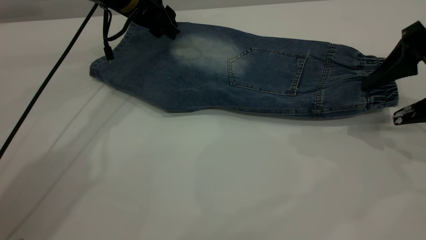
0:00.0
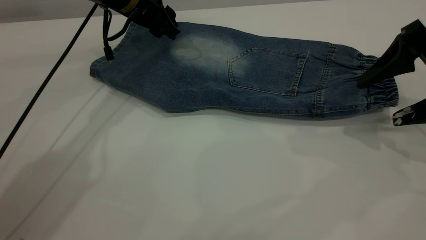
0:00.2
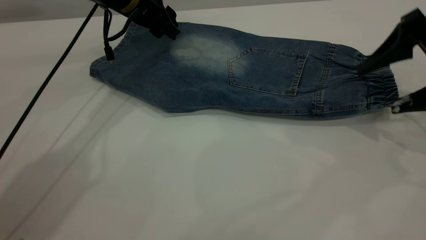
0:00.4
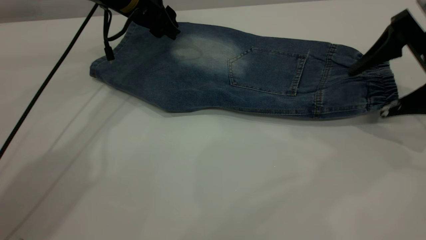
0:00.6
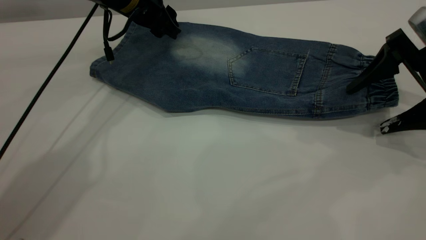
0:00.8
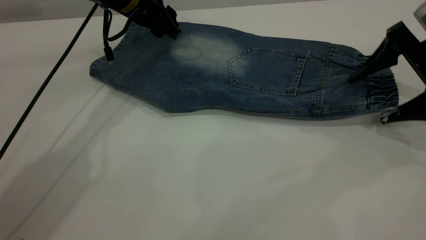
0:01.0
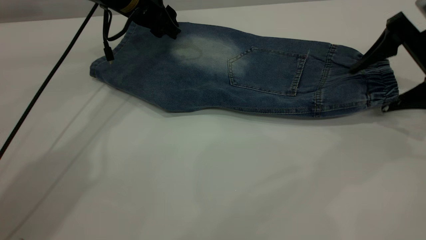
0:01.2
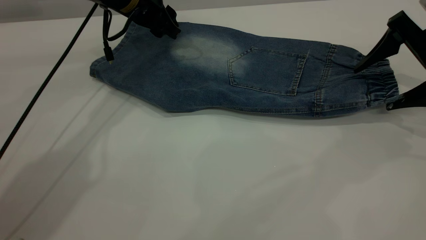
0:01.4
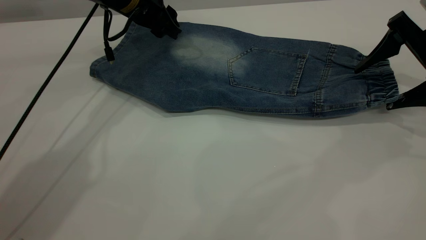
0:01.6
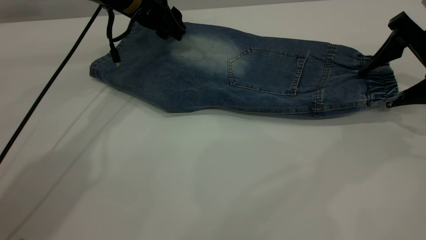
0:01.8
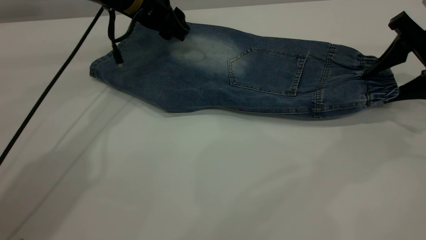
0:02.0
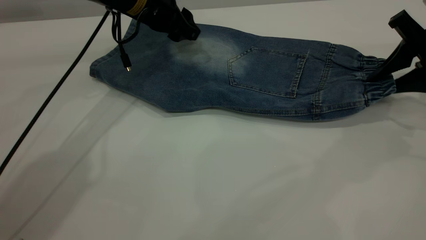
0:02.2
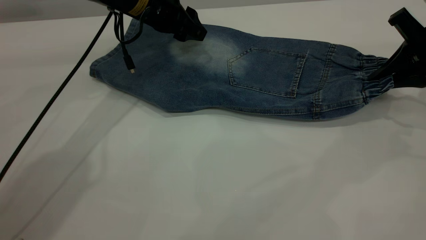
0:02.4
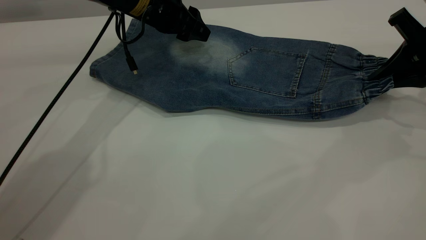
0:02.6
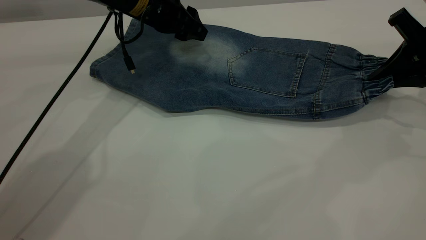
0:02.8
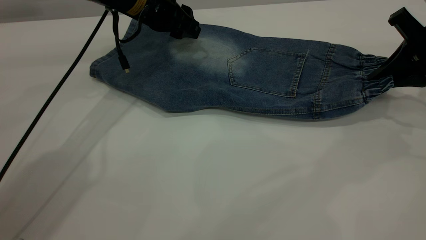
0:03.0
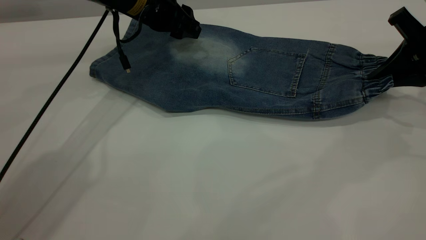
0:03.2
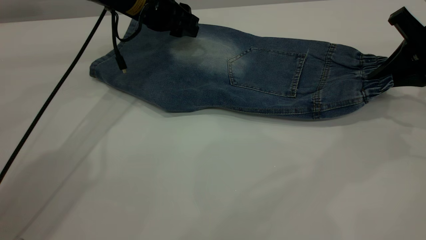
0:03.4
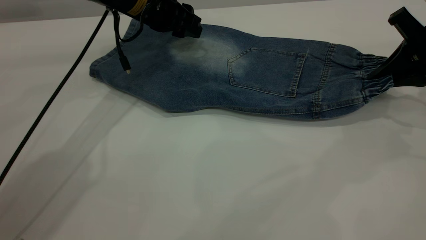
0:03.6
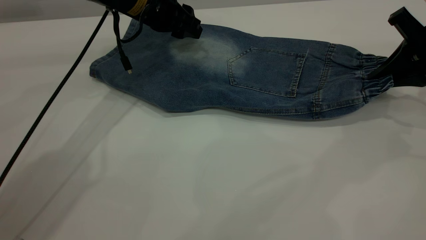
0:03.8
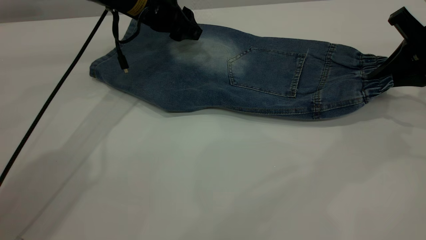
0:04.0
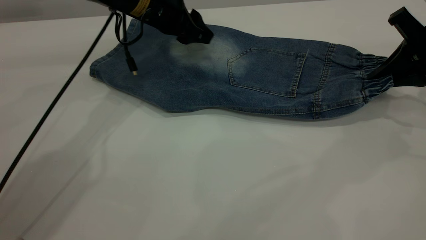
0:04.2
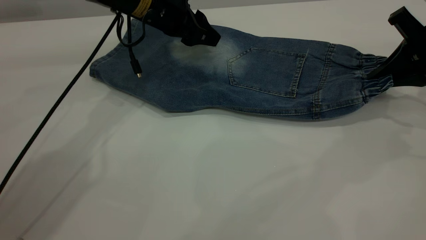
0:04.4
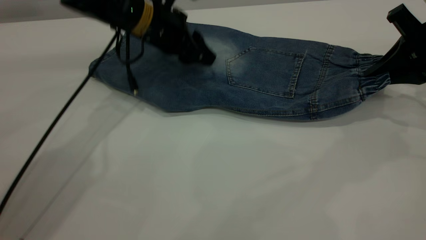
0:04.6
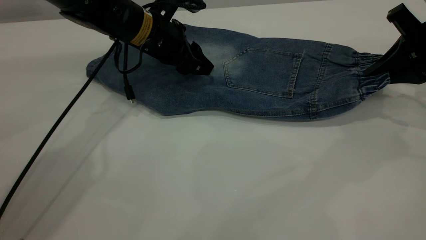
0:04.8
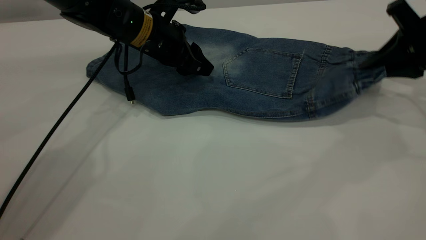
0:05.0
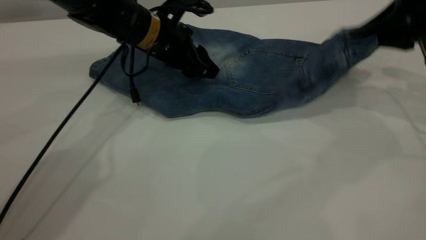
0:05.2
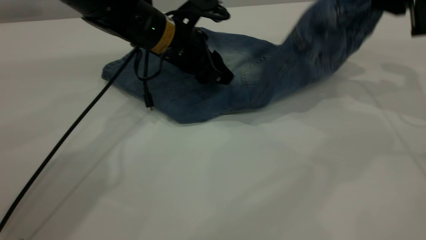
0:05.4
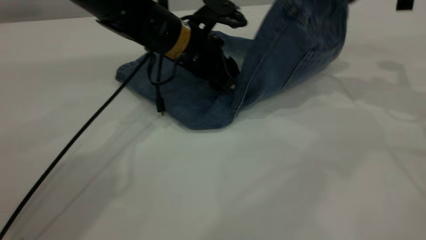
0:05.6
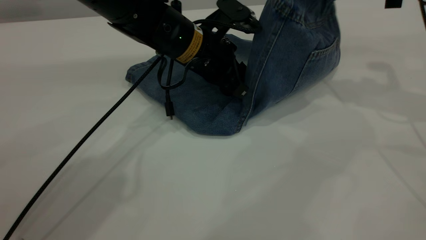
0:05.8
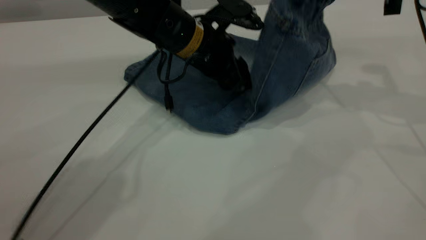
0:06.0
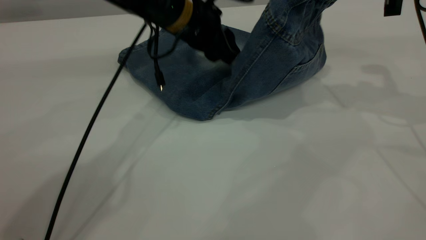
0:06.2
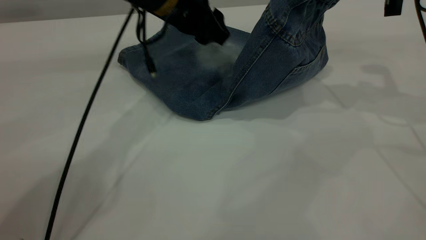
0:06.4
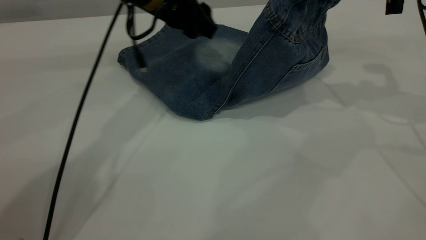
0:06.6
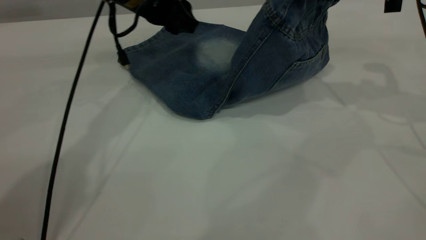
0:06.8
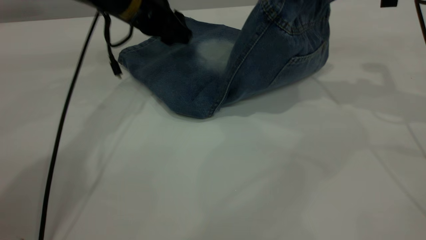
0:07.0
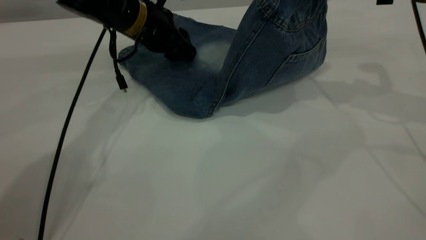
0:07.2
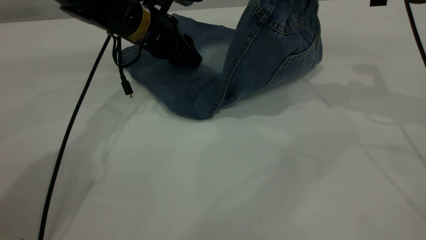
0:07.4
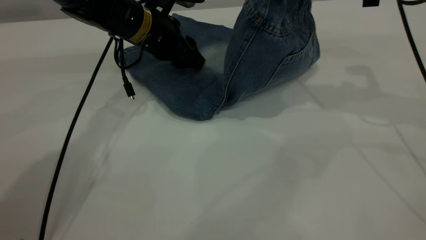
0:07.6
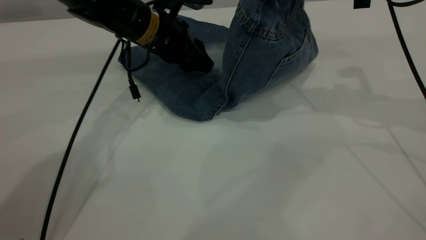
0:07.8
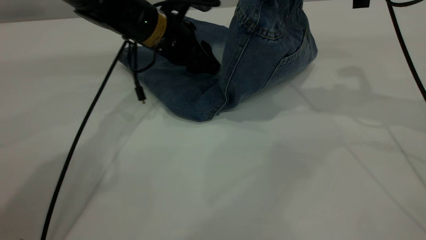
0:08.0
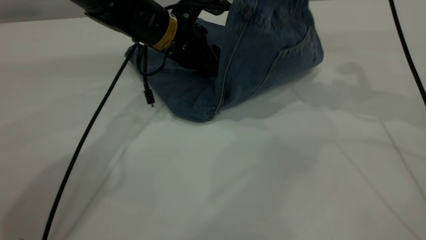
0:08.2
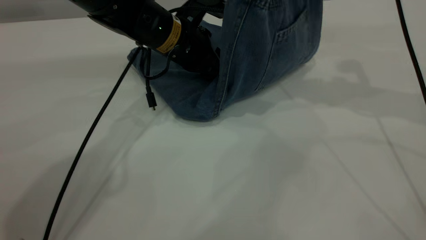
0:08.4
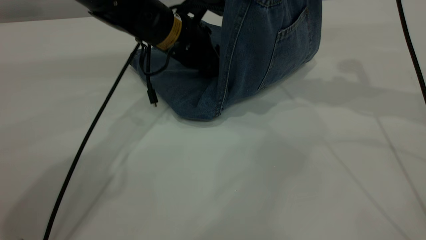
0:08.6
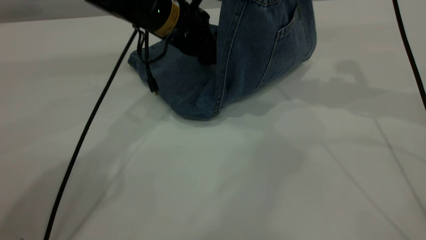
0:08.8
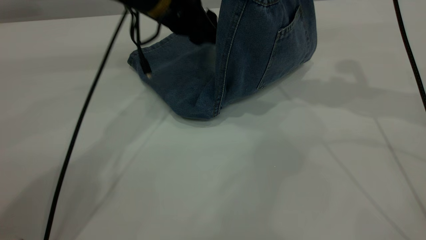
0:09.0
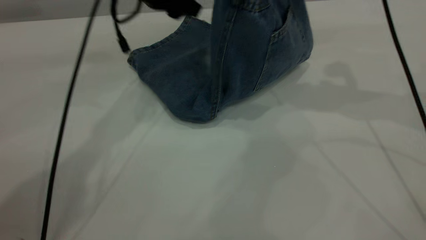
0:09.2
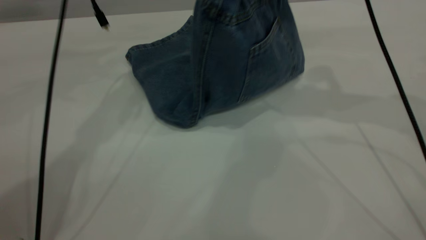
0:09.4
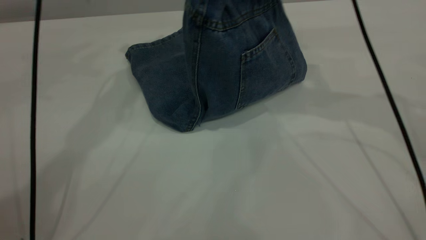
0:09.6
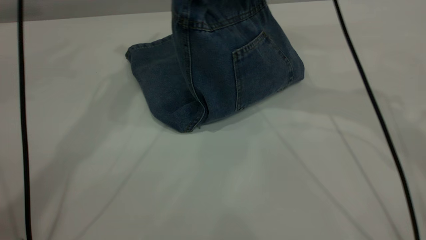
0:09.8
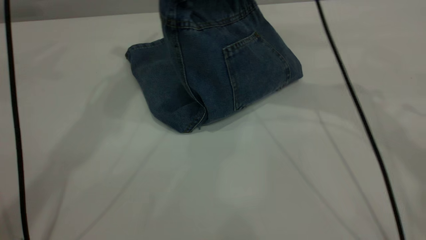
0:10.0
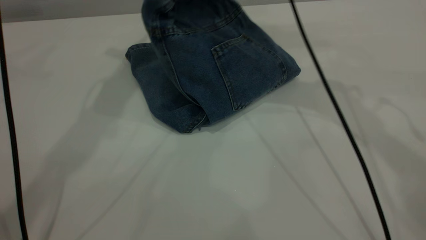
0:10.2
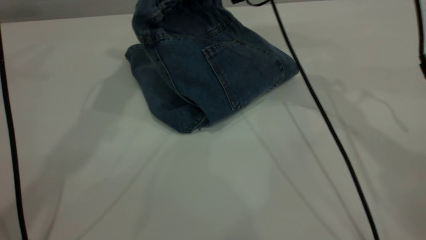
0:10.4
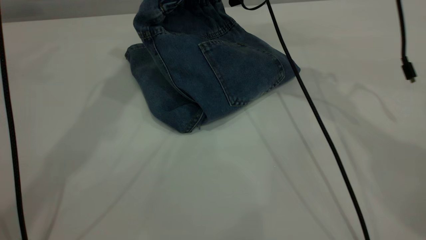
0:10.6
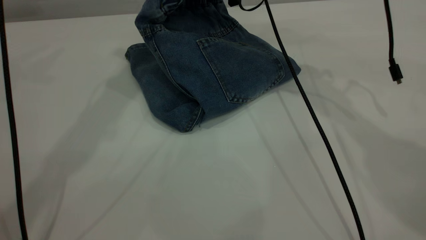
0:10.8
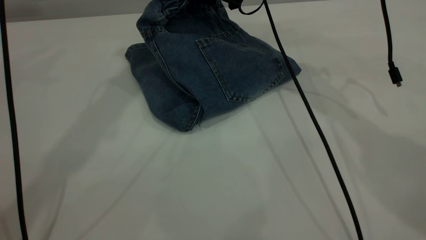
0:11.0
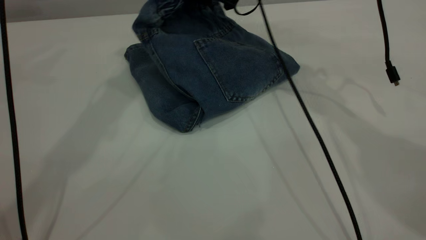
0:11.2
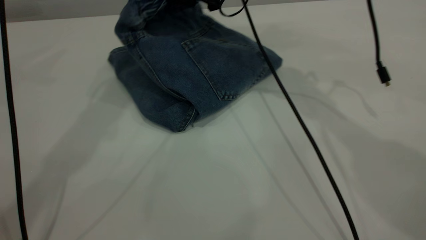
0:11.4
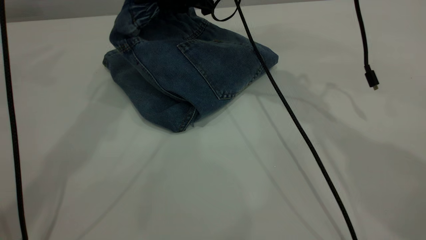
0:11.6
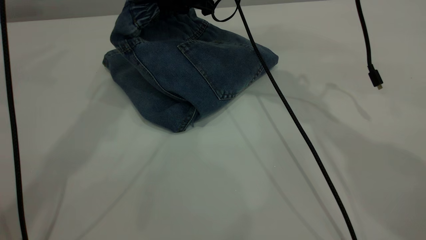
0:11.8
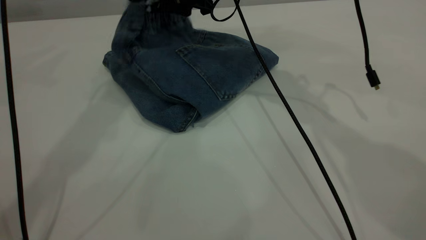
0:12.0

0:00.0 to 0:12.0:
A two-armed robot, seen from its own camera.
0:00.0 to 0:01.6: The right gripper goes approximately 5 cm forward.
0:01.6 to 0:03.0: The right gripper closes.
0:03.0 to 0:04.4: There are only small adjustments of the grippers.
0:04.4 to 0:06.0: The left gripper goes some 10 cm to the right and backward. The right gripper goes about 10 cm upward.
0:06.0 to 0:07.6: The left gripper heads to the left, covering about 5 cm.
0:07.6 to 0:09.0: The left gripper shifts about 5 cm upward.
0:09.0 to 0:10.4: The left gripper moves upward, some 20 cm, while the right gripper is displaced to the left and forward by about 15 cm.
0:10.4 to 0:12.0: The right gripper moves roughly 5 cm, and opens up.

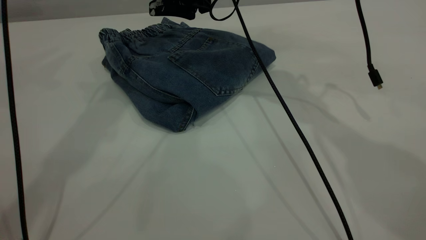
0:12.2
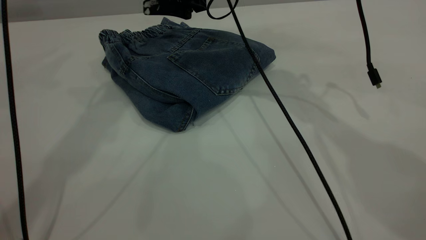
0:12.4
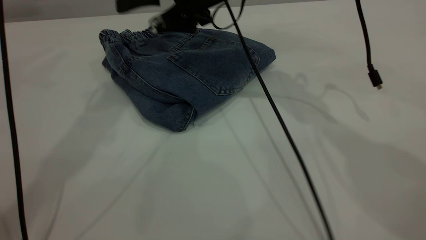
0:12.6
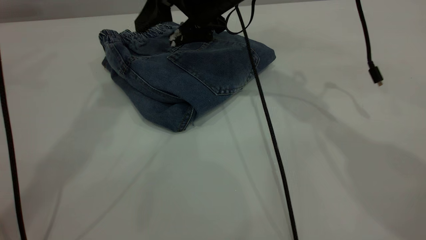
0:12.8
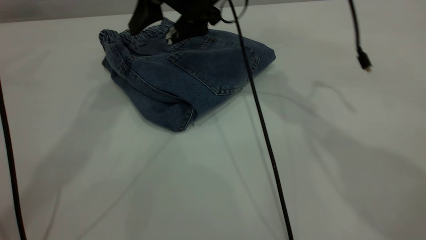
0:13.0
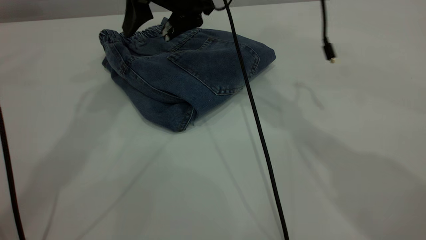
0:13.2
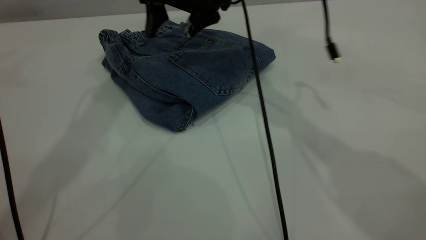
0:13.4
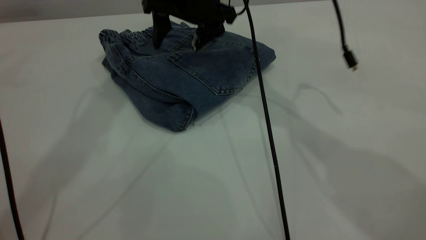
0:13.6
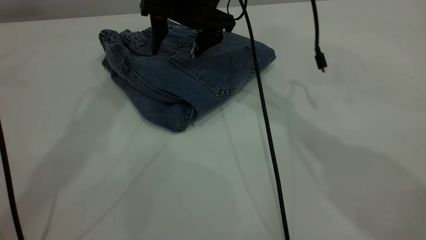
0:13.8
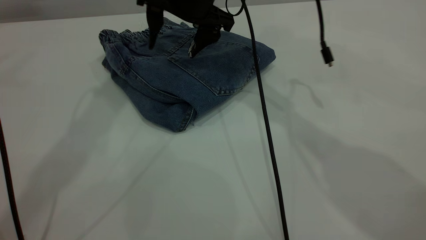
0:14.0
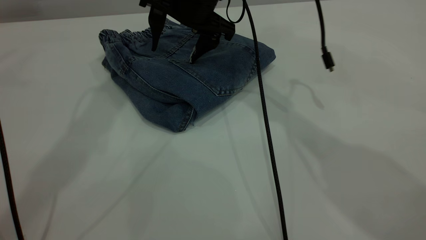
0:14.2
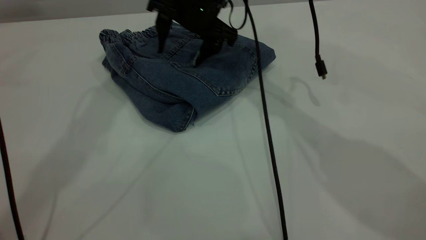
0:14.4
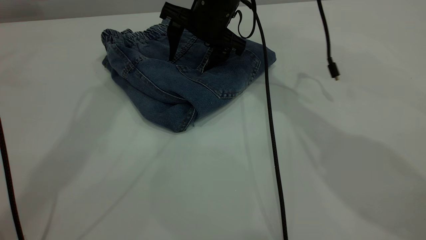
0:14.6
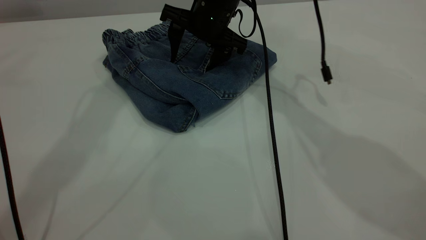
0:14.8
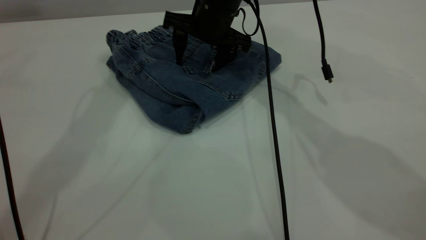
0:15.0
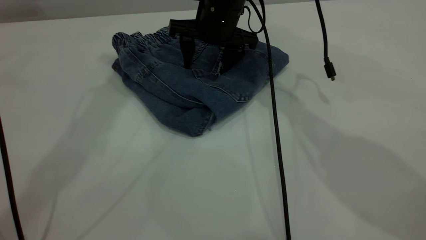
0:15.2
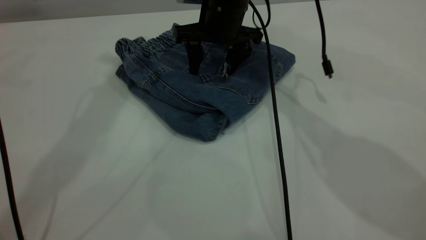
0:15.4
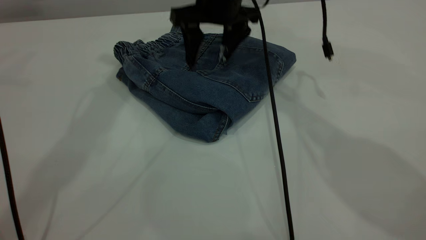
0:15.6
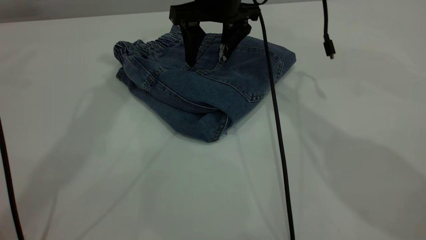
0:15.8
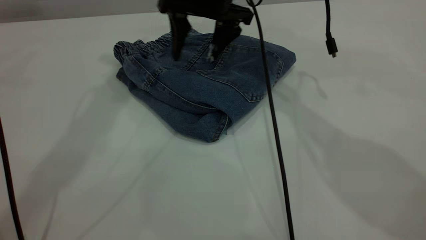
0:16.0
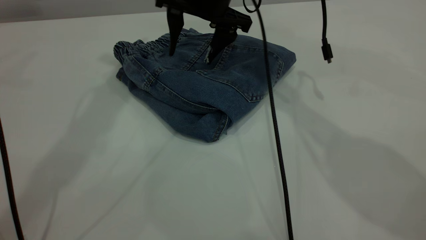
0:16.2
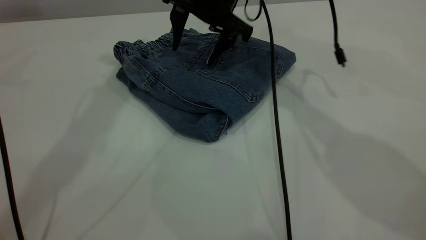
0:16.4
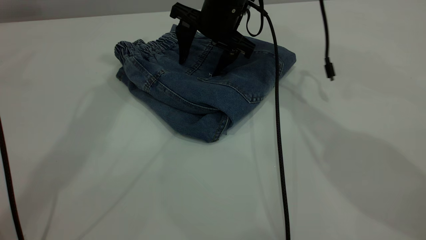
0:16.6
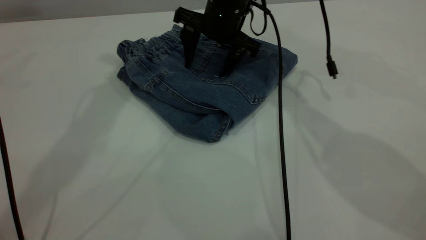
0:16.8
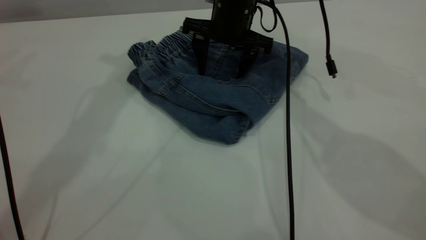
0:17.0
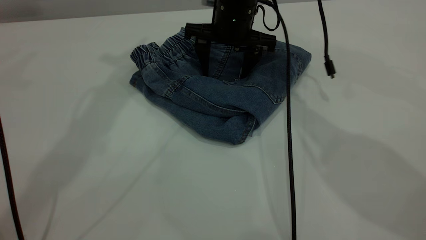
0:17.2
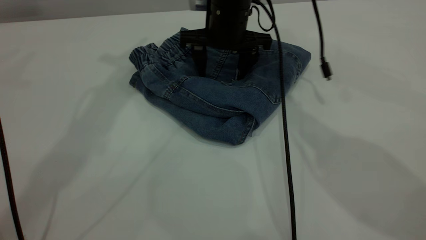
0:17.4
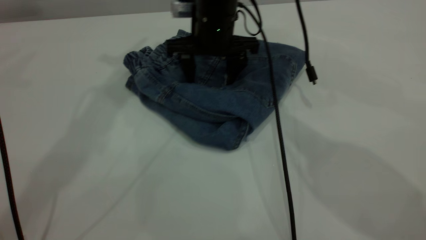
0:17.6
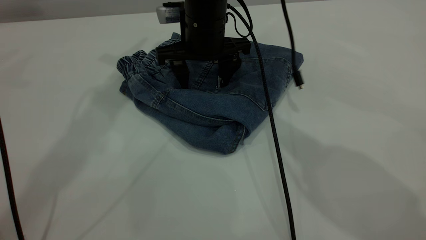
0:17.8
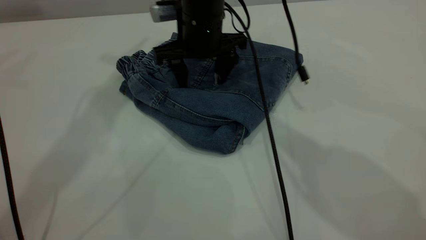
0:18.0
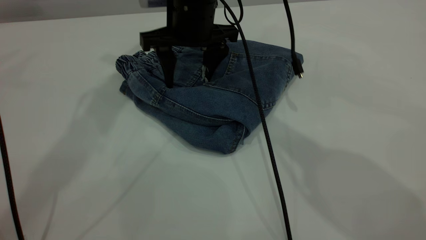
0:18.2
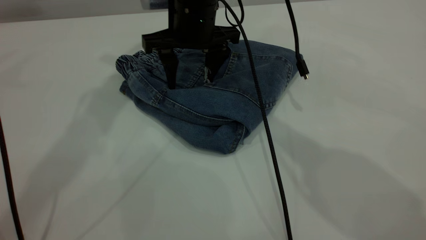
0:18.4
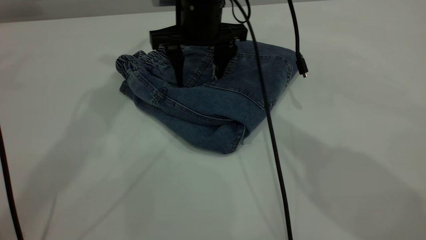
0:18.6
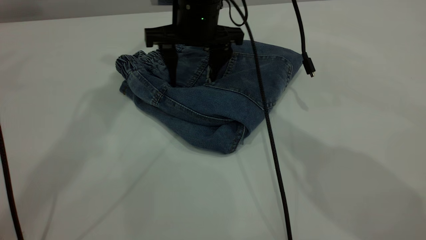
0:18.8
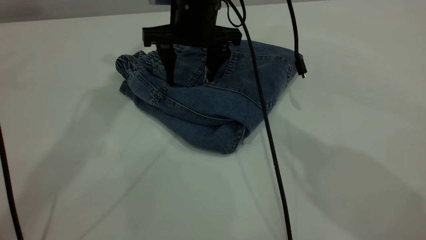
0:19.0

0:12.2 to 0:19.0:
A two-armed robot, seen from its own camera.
0:16.2 to 0:17.6: The right gripper changes place by about 5 cm.
0:17.6 to 0:19.0: The grippers stay close to where they were, moving slightly.
